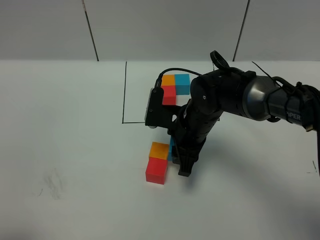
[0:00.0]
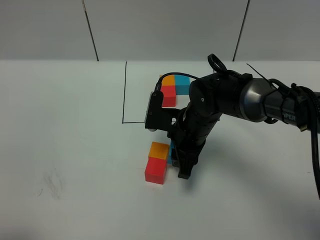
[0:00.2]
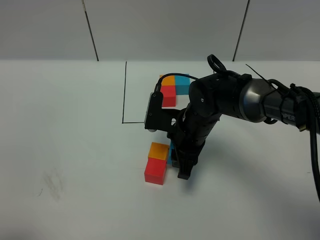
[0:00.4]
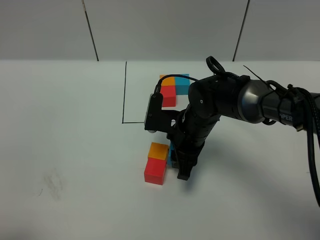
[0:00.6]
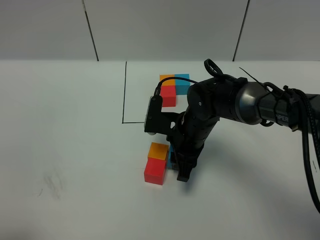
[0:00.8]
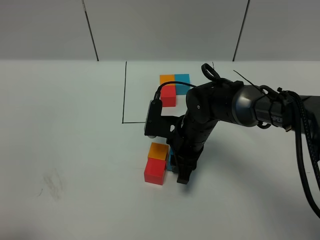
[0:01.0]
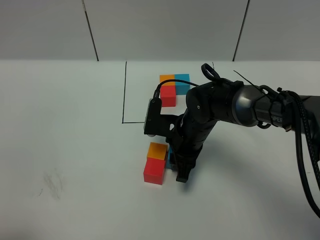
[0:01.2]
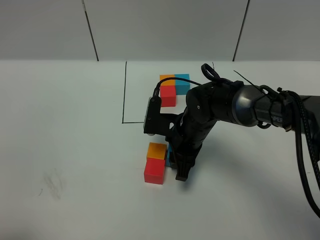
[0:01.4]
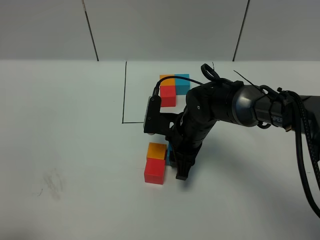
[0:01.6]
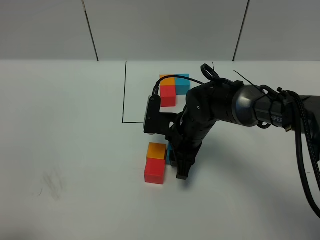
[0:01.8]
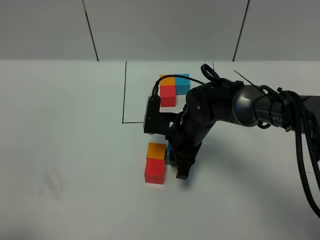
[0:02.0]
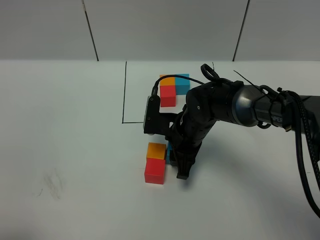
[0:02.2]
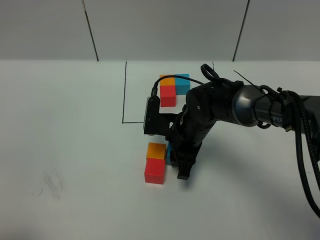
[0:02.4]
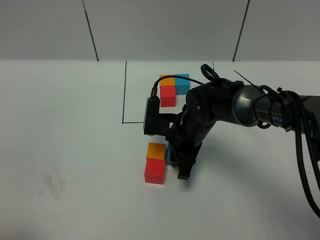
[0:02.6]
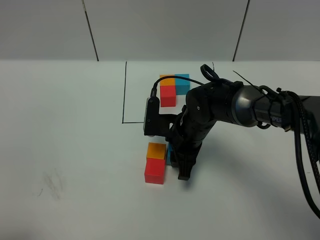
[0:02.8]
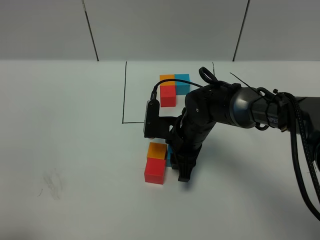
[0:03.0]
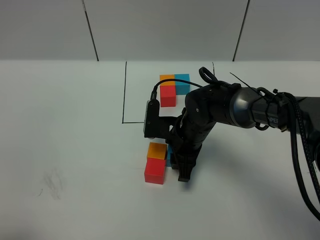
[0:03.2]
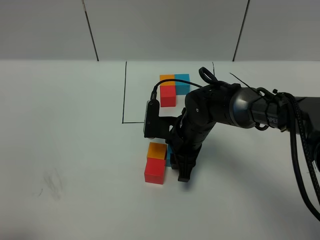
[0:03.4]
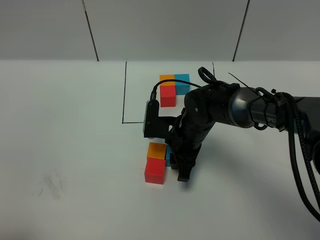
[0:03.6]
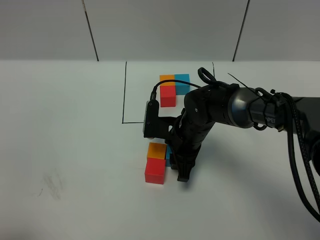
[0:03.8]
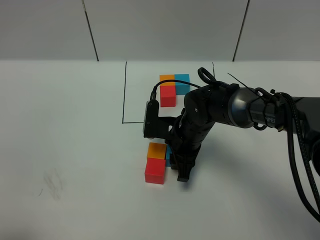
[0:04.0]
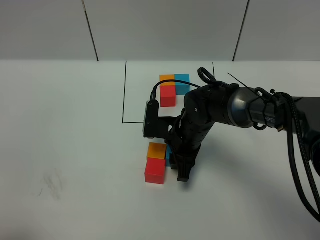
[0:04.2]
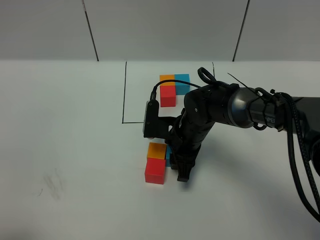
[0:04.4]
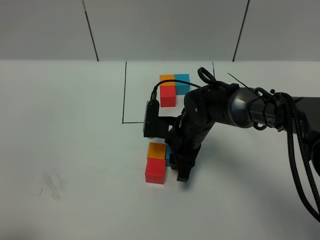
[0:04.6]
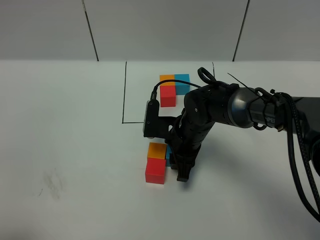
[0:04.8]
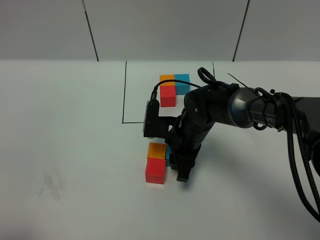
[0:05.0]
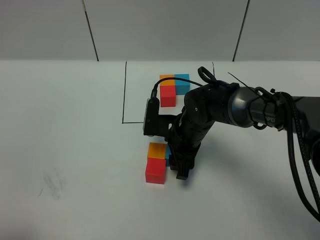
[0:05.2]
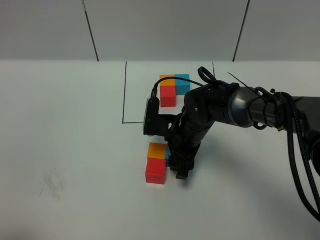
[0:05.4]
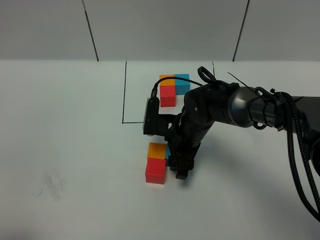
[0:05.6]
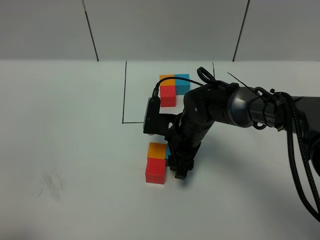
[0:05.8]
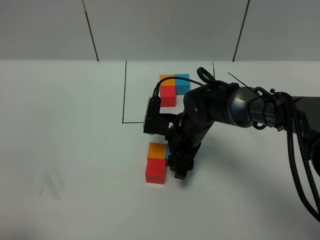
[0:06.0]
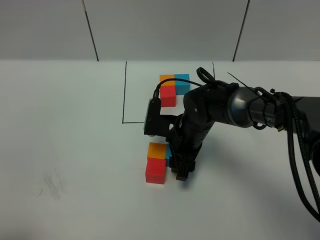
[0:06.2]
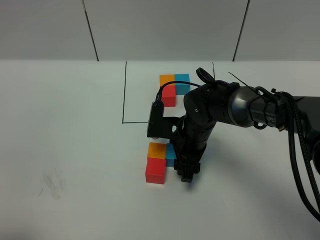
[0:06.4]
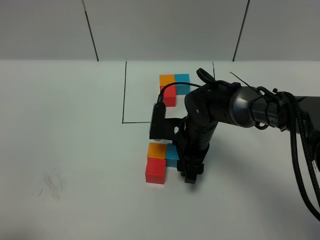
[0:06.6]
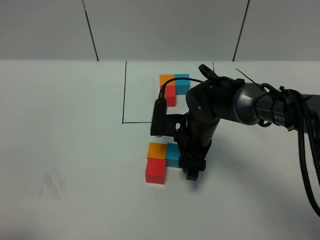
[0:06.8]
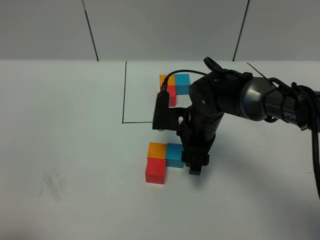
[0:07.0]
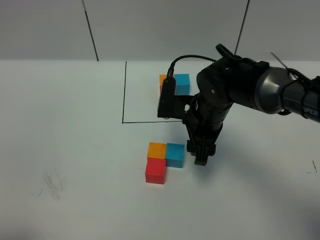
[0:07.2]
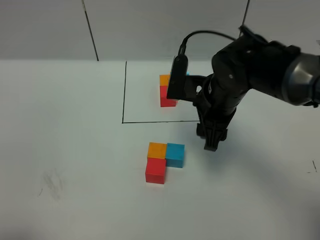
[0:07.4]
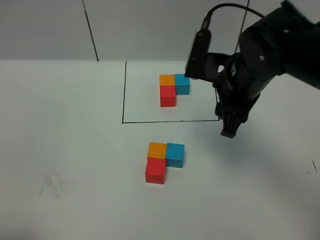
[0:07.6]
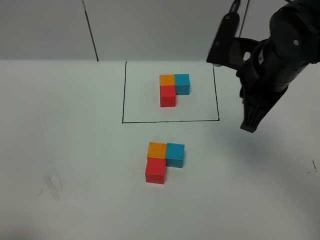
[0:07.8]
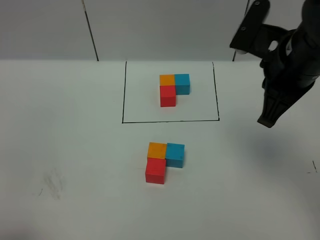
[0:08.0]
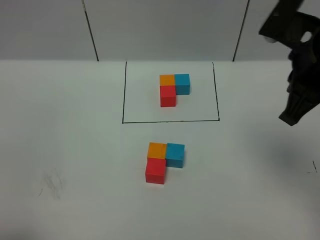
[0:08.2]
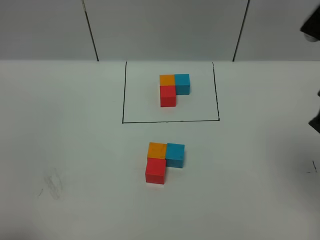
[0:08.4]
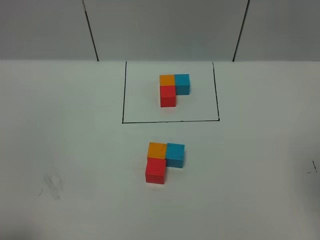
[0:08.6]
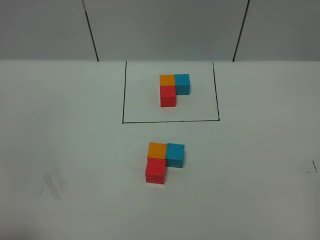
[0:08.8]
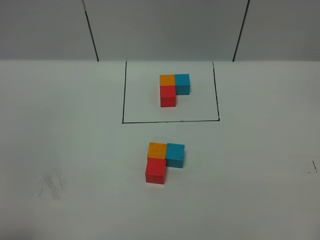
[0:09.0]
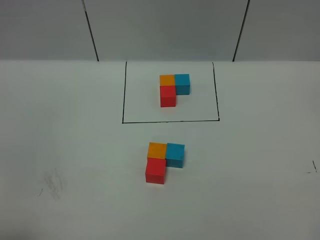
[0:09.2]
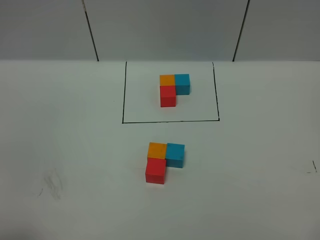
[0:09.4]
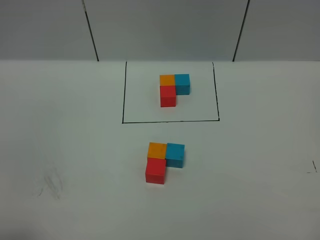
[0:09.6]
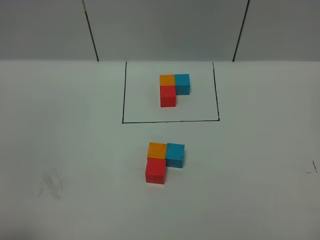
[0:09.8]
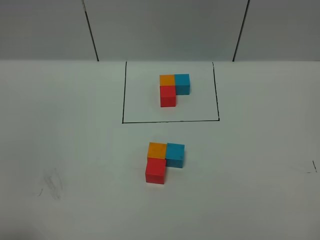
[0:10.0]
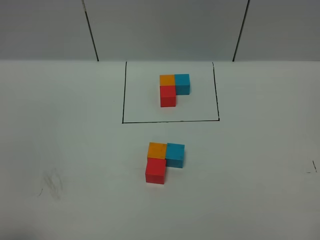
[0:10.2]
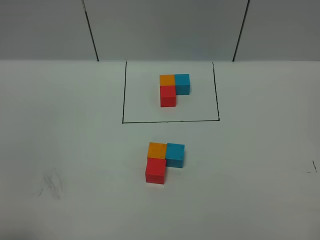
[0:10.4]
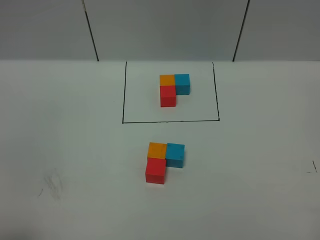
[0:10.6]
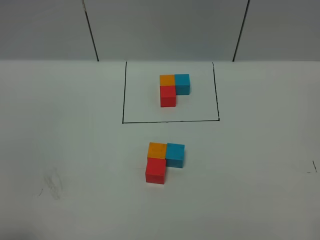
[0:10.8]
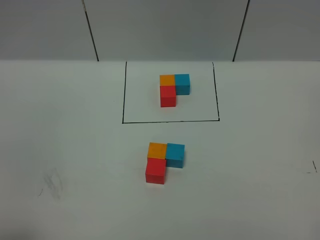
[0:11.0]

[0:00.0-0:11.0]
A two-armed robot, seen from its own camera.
Task of the whole recording: According to the building block template in front, assemble the scattered blocks together.
Step, 0:00.0 to 0:06.8: Put the blue cube on the right of the orange cube.
0:00.0 to 0:01.6: There are only small adjustments of the grippers.
0:01.6 to 0:03.2: Both grippers stay about where they are.
0:03.2 to 0:06.2: Both grippers stay about where they are.
0:06.2 to 0:07.8: The right gripper is displaced upward and to the right by about 25 cm, and closes up.
0:07.8 to 0:09.4: The right gripper shifts roughly 35 cm backward and to the right.

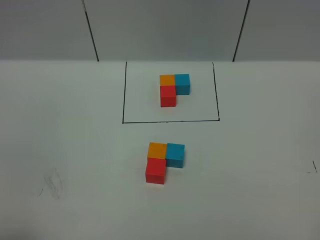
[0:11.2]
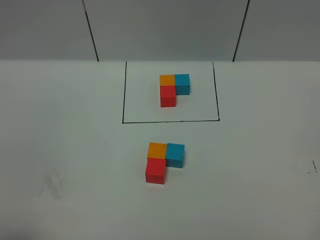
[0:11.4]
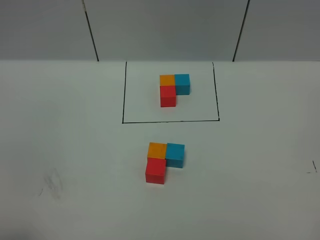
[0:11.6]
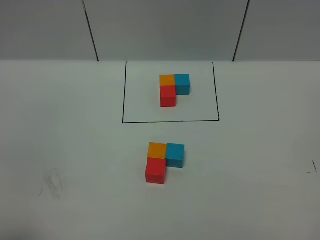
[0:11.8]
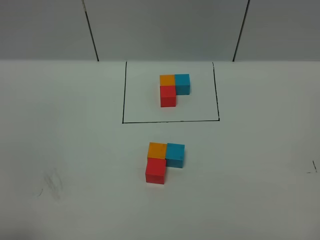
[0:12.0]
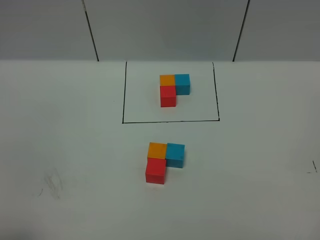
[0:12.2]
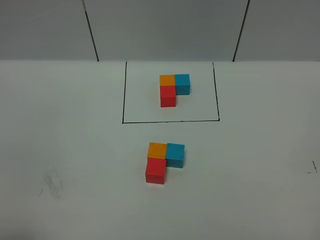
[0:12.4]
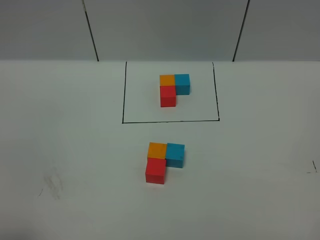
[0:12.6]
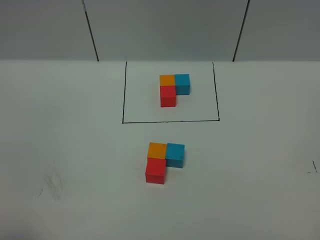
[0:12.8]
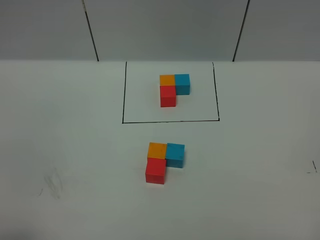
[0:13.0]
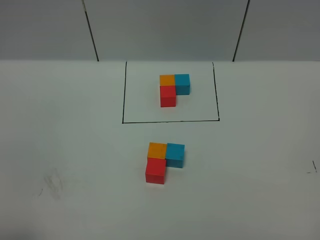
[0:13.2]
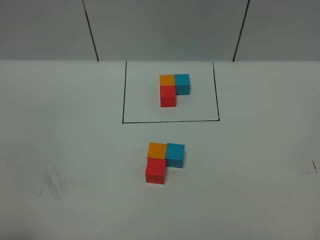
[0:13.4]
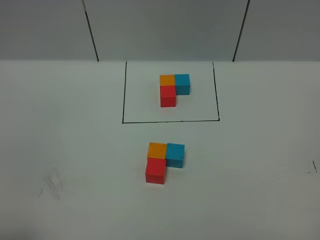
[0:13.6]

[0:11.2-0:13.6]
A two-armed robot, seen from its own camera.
Task of the whole recording: According to the building block template in front, assemble the scattered blocks together.
0:12.4 to 0:13.6: Both grippers stay about where they are.

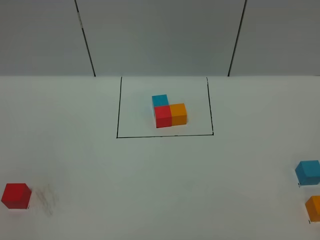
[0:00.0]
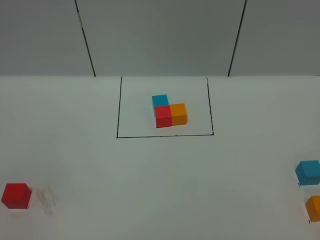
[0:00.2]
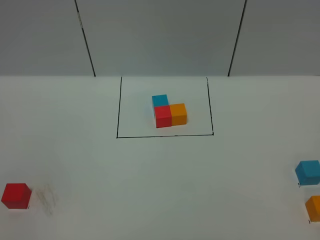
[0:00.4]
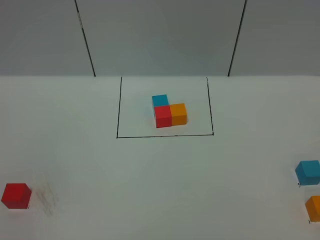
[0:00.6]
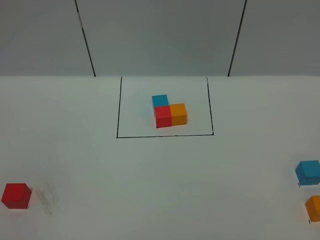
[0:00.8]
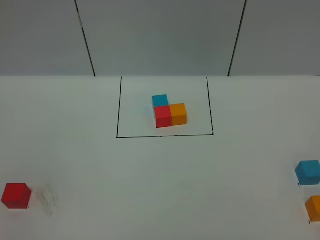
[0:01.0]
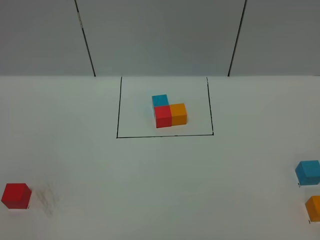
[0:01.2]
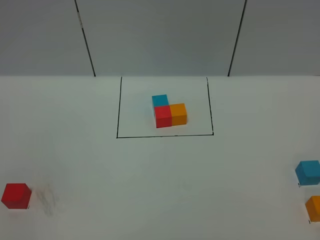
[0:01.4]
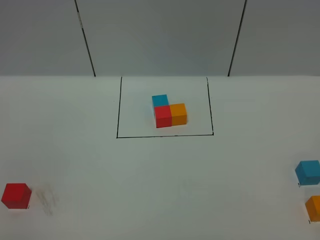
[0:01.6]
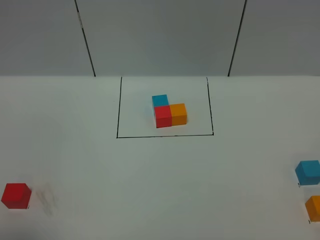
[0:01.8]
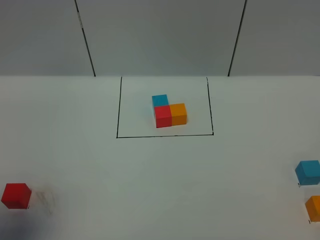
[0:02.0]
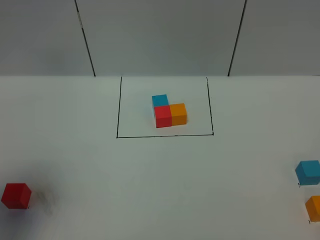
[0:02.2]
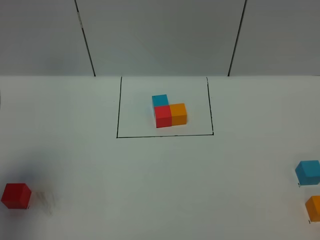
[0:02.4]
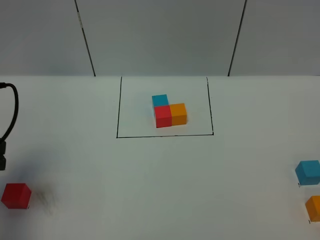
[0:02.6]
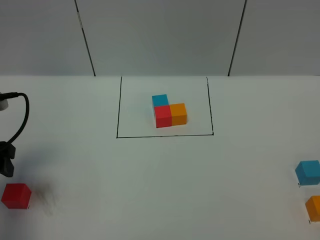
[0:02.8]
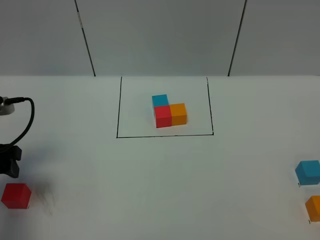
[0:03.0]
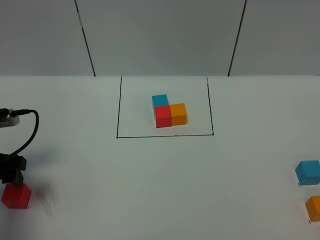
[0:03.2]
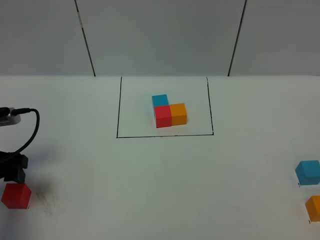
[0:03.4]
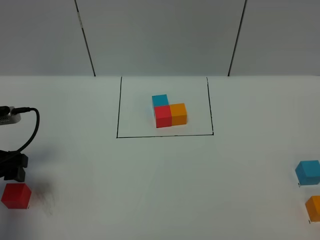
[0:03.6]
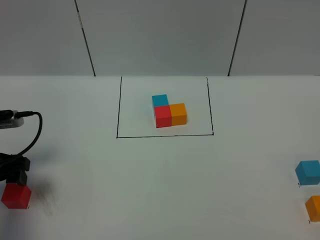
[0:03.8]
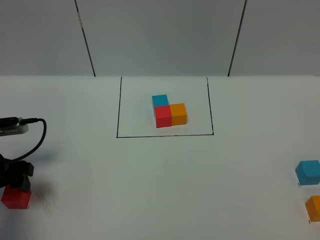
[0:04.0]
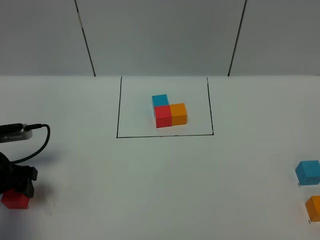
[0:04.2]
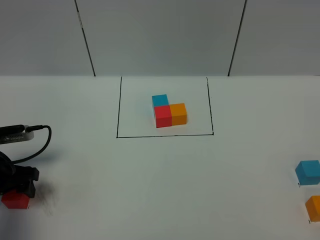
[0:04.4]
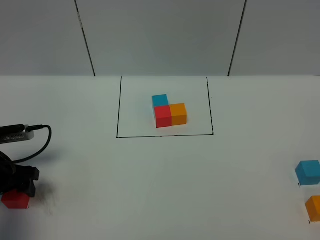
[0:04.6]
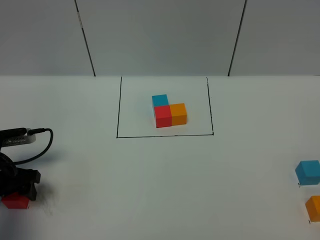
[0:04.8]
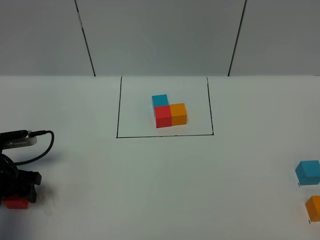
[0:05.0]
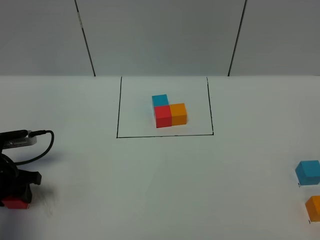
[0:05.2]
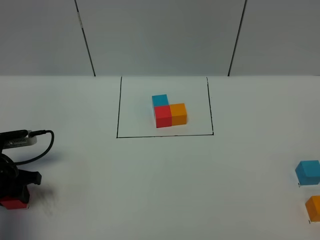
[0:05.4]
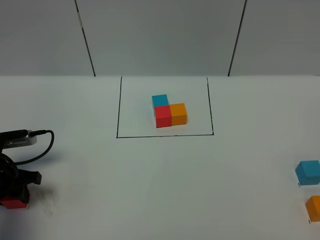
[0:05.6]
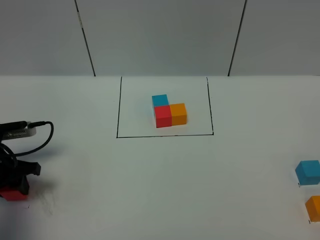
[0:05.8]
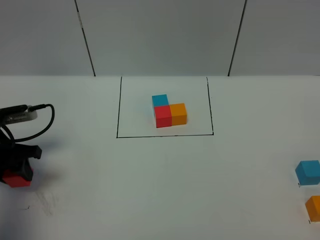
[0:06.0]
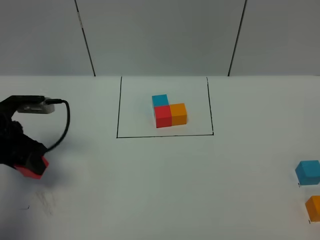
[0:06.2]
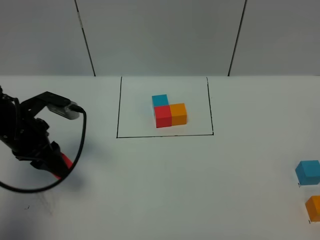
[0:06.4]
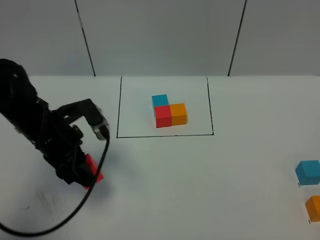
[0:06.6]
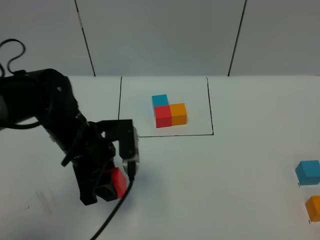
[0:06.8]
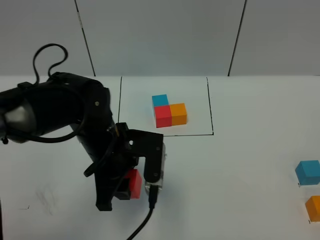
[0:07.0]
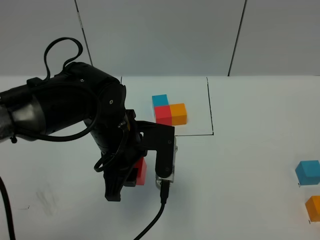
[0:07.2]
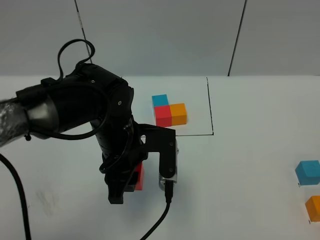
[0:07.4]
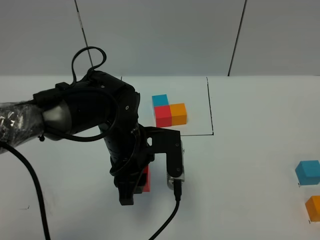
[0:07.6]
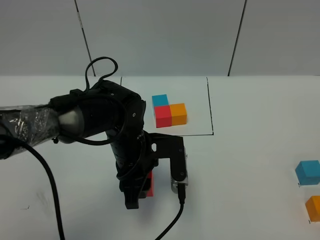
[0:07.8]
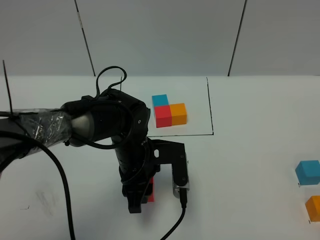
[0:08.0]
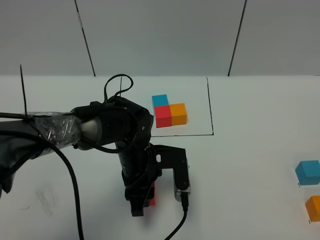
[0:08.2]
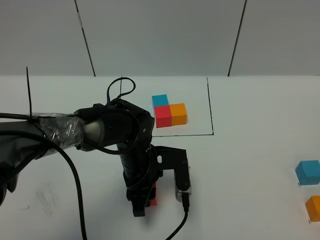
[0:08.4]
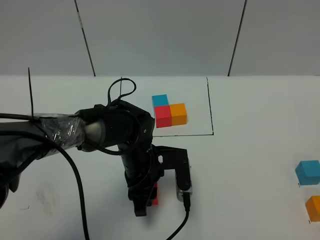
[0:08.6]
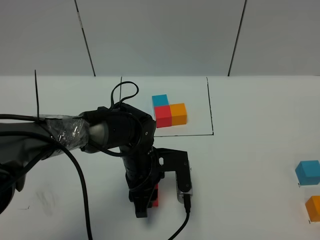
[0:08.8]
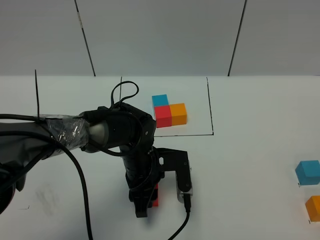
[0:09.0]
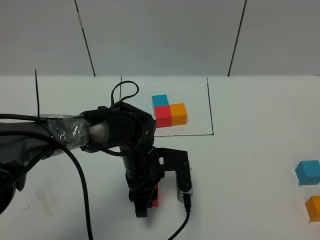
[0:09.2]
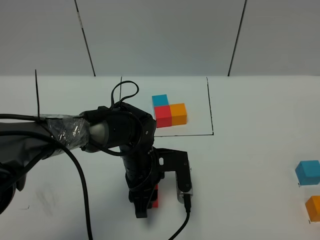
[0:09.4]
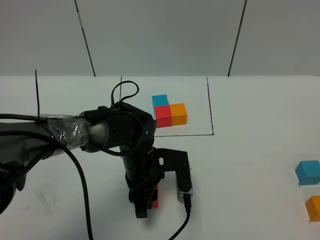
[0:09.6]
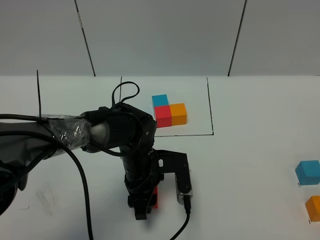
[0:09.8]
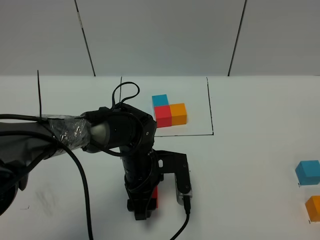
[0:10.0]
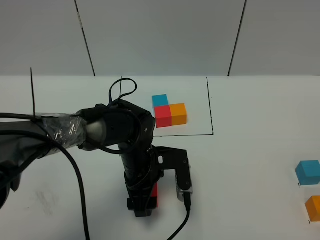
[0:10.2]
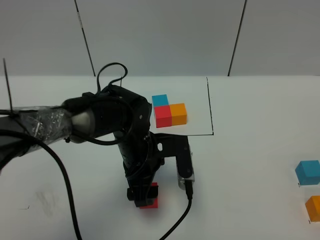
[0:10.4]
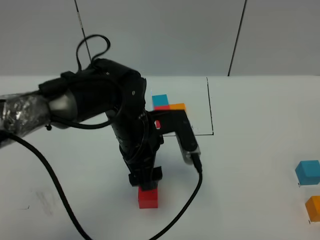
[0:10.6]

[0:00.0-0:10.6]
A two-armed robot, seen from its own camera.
Task of the whole recording: According to the building block template in front, assemble the scattered blocks together.
Step, 0:02.4 to 0:10.4: Put the red cube in the center of the table.
0:01.6 to 0:03.0: The left gripper travels forward by about 25 cm.
0:03.0 to 0:04.6: The left gripper goes roughly 10 cm downward.
0:04.6 to 0:06.0: The left gripper closes its fingers.
0:06.0 to 0:07.6: The left gripper shifts some 25 cm to the right.
0:07.6 to 0:09.0: The left gripper goes approximately 10 cm downward.
0:09.0 to 0:10.6: The left gripper goes some 10 cm upward, and opens up.
